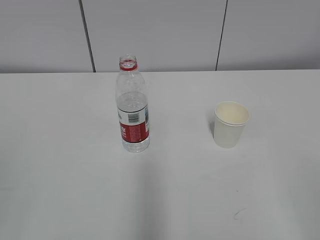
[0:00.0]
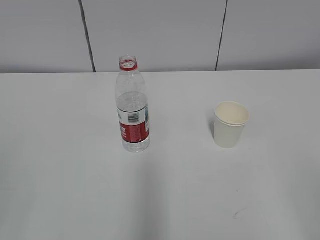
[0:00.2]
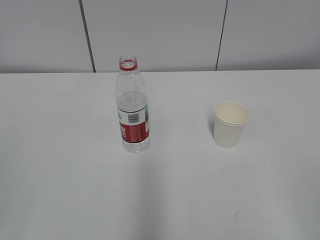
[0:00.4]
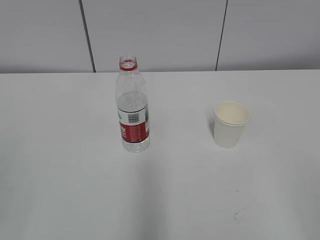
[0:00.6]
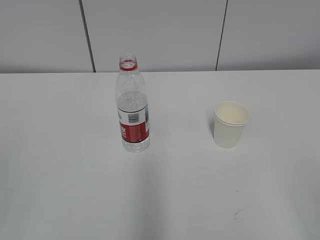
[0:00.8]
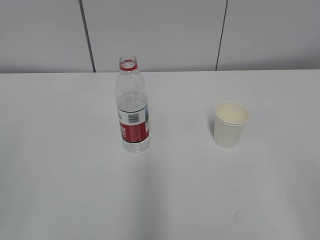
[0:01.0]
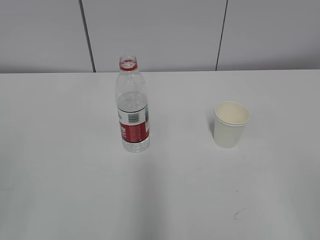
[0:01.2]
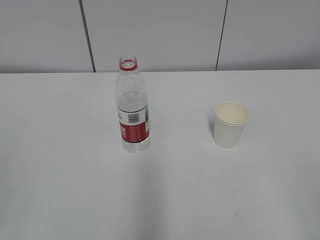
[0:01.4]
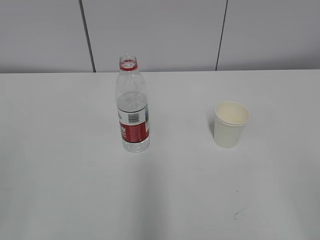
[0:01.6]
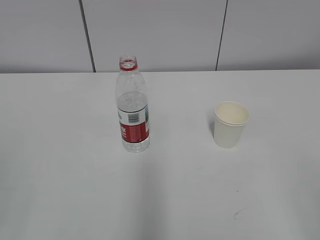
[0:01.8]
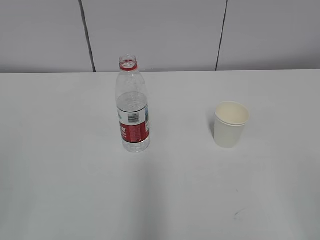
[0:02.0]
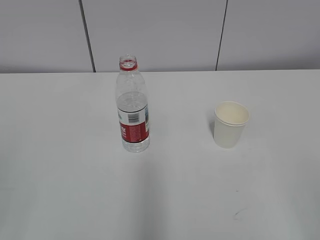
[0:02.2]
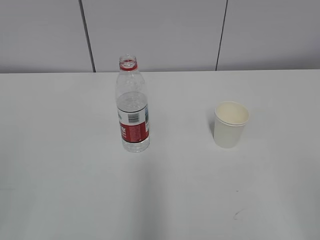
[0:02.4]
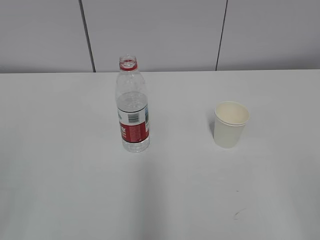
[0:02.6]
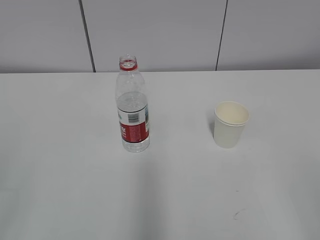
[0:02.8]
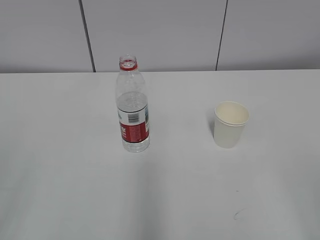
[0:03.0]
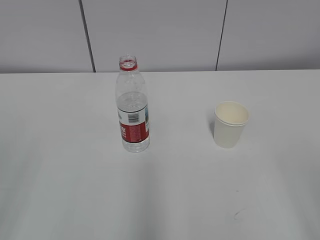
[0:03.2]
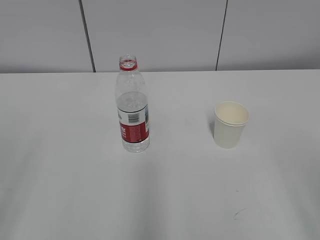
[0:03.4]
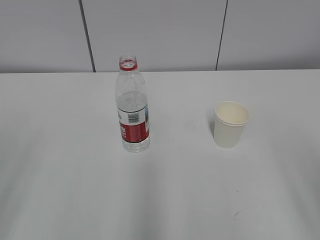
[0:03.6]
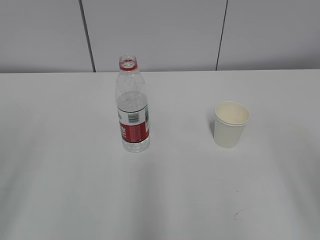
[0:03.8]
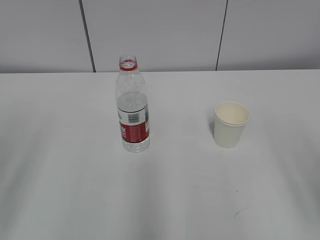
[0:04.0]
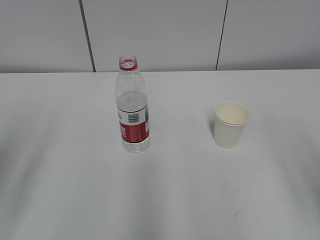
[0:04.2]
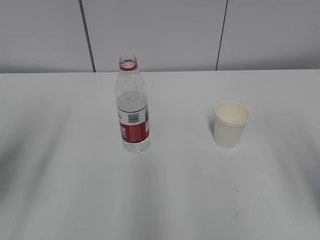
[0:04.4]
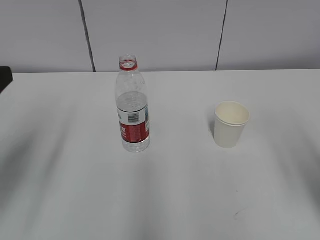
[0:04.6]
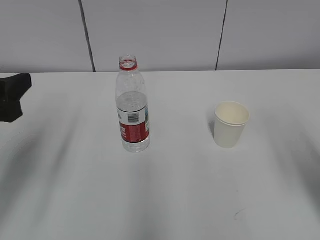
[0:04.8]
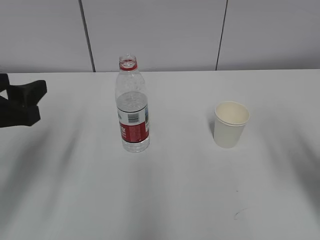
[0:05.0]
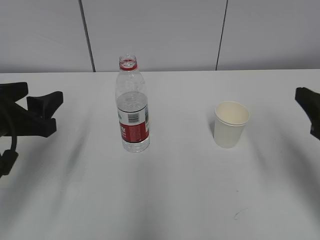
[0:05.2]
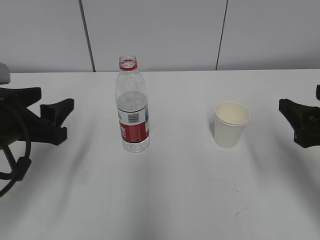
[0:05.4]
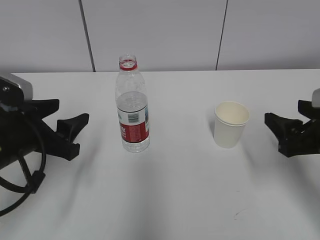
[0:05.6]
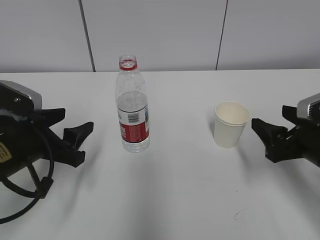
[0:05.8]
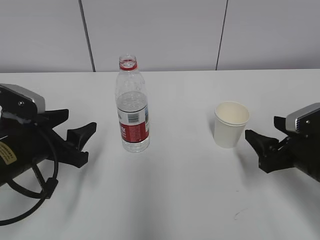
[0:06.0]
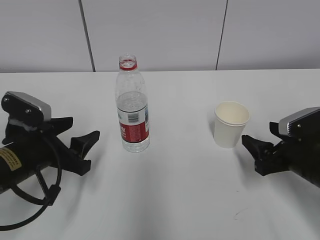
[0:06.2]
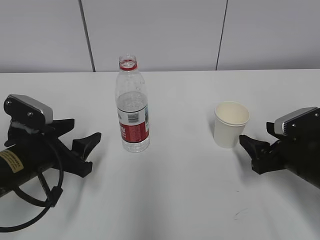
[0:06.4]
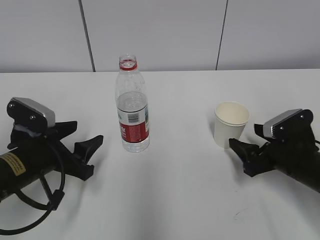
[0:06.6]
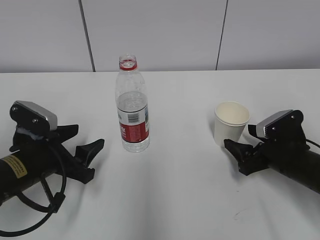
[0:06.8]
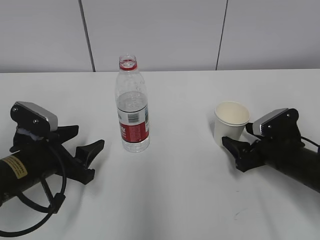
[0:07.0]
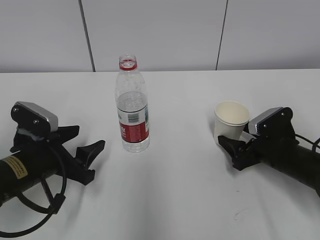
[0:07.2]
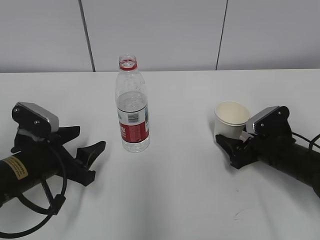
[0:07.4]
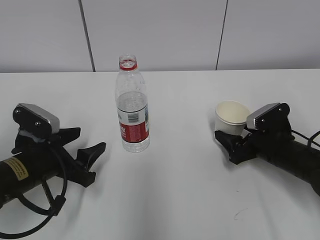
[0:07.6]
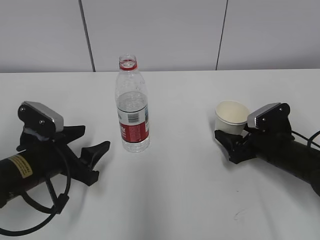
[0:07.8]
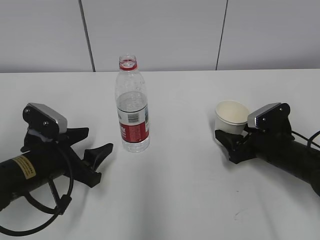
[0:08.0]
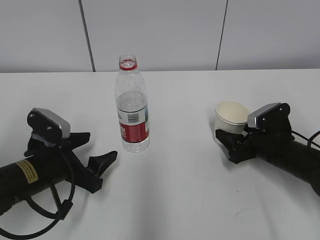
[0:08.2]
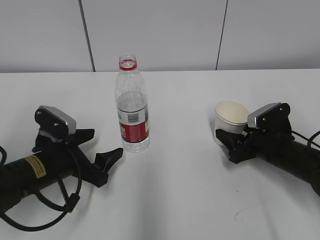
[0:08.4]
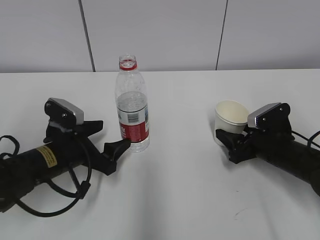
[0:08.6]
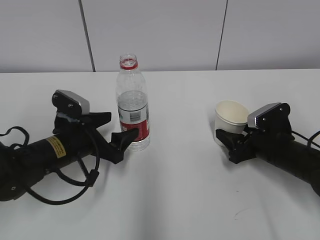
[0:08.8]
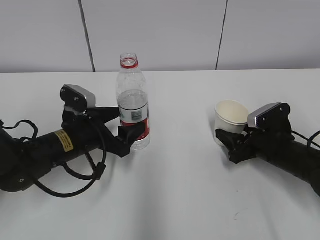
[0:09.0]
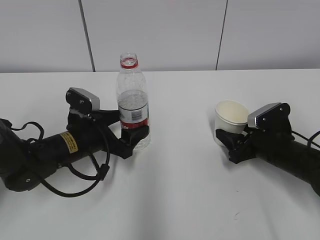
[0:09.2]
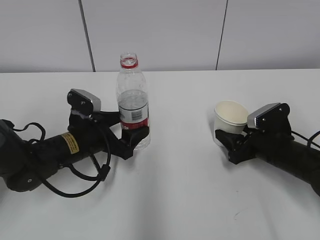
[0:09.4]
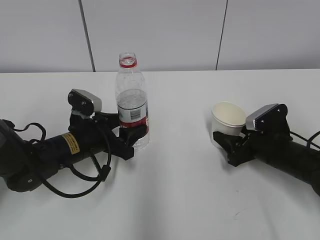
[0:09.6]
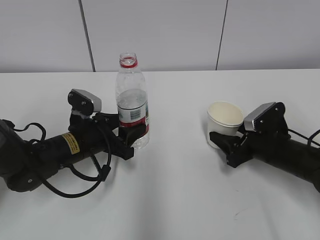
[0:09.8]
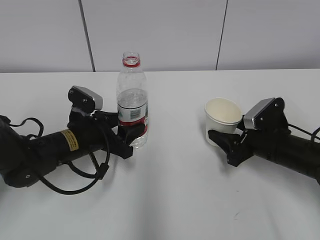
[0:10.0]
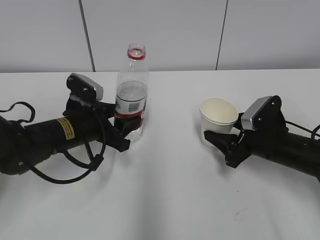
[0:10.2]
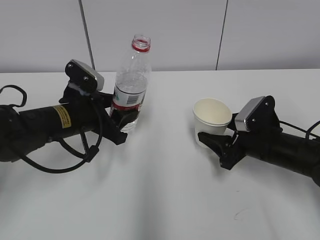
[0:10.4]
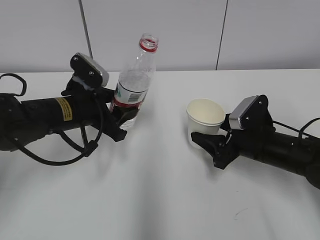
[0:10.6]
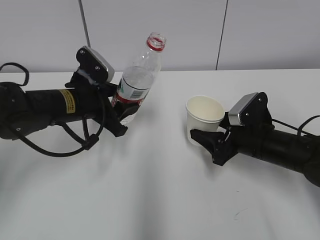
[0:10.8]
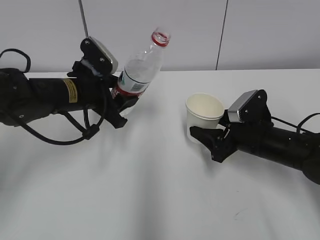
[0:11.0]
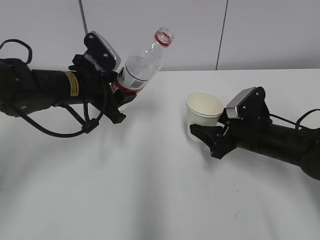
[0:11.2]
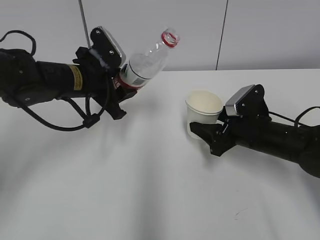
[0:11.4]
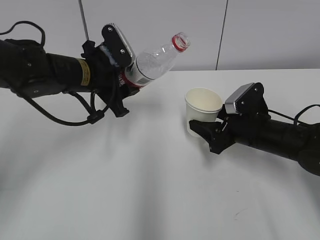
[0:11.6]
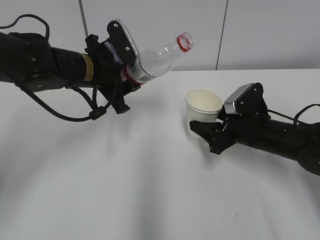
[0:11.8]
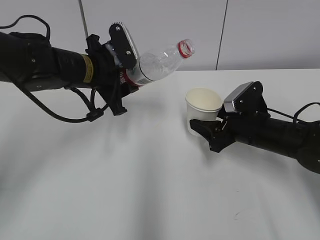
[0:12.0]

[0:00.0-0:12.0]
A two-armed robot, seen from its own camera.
Step, 0:00.0 to 0:08.0: Grab the paper cup with the right hand.
Step, 0:08.4 to 0:11.6: Lift the paper cup with the right hand.
0:03.0 to 0:04.4: The left gripper shifts approximately 15 cm forward.
0:04.4 to 0:06.0: The left gripper heads downward, forward and to the right, covering approximately 20 cm, while the right gripper heads downward and forward, covering some 20 cm.
0:06.0 to 0:07.6: The right gripper heads forward and downward, covering roughly 10 cm.
0:07.6 to 0:09.0: The left gripper is displaced forward by approximately 5 cm, while the right gripper closes.
0:09.0 to 0:10.4: The left gripper closes its fingers.
0:10.4 to 0:12.0: The left gripper moves upward and forward, some 10 cm.

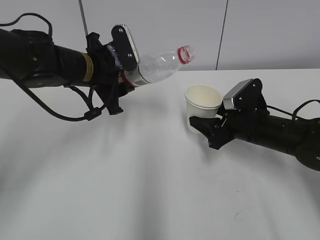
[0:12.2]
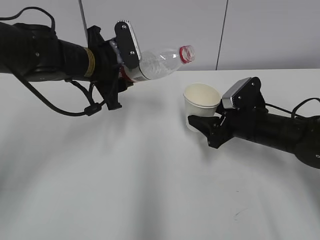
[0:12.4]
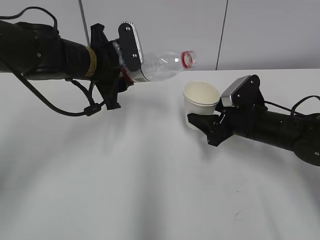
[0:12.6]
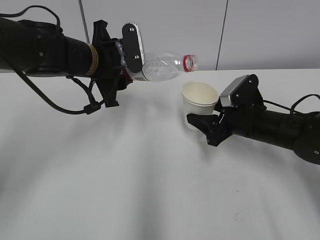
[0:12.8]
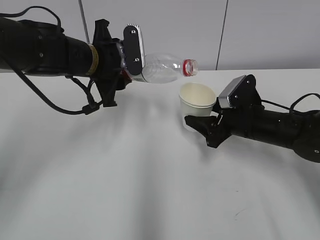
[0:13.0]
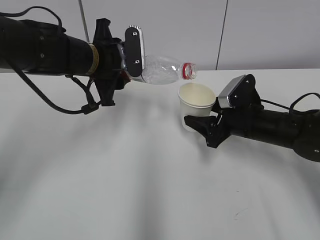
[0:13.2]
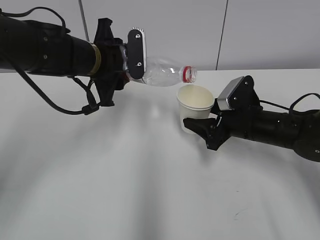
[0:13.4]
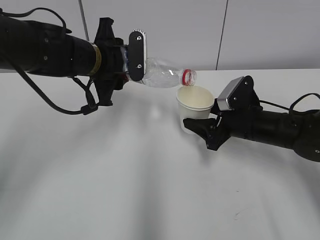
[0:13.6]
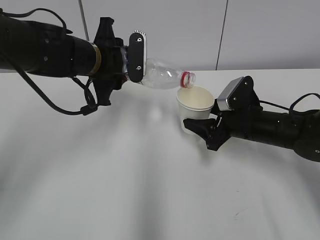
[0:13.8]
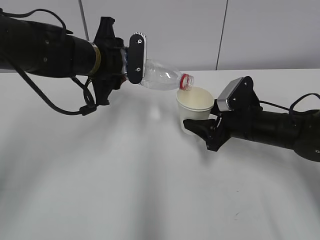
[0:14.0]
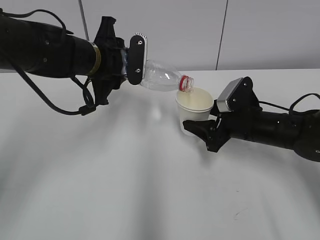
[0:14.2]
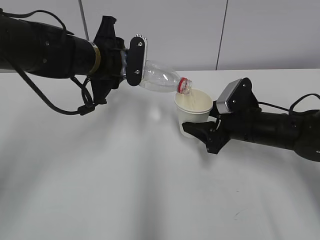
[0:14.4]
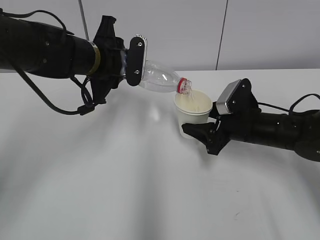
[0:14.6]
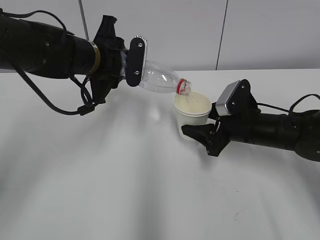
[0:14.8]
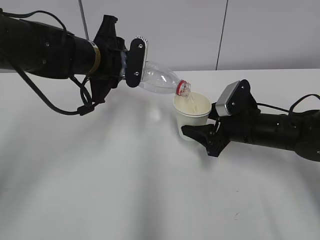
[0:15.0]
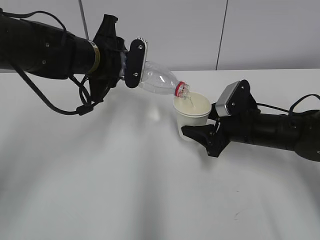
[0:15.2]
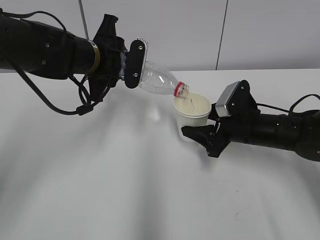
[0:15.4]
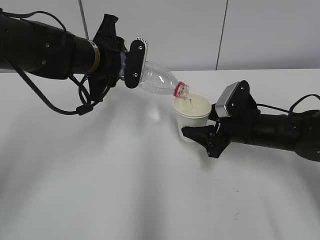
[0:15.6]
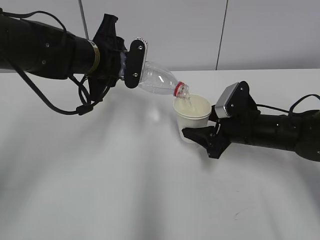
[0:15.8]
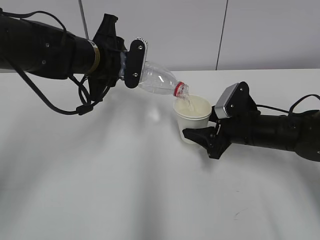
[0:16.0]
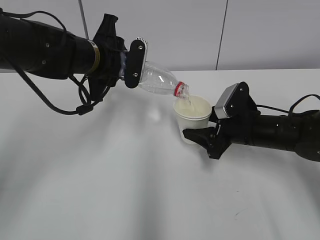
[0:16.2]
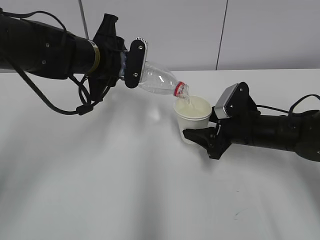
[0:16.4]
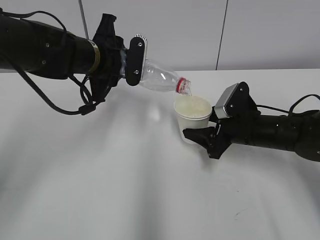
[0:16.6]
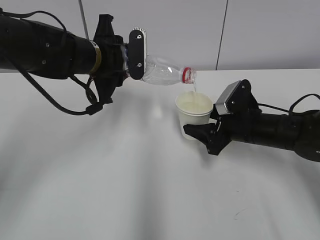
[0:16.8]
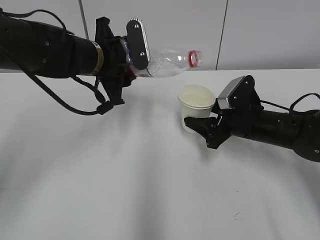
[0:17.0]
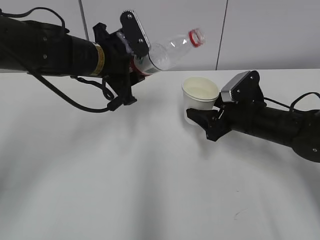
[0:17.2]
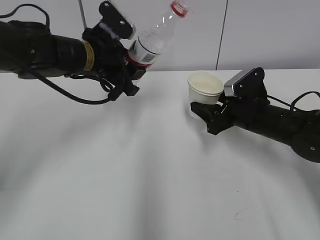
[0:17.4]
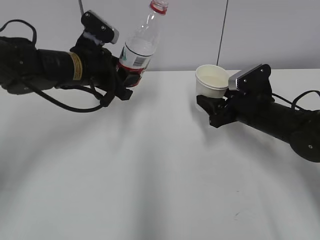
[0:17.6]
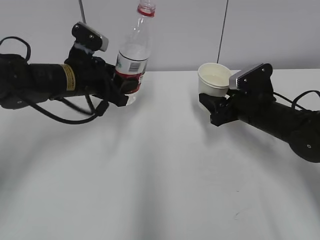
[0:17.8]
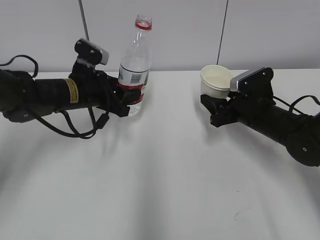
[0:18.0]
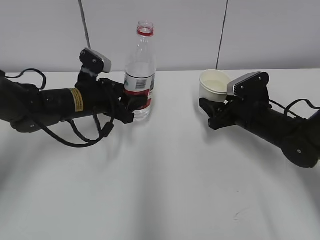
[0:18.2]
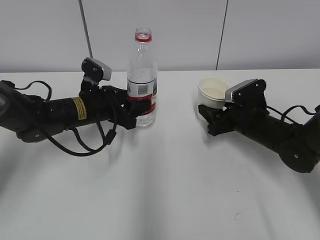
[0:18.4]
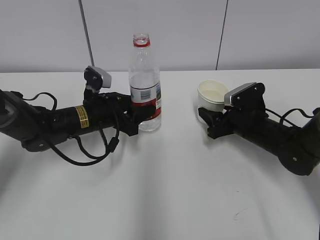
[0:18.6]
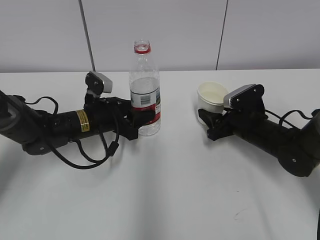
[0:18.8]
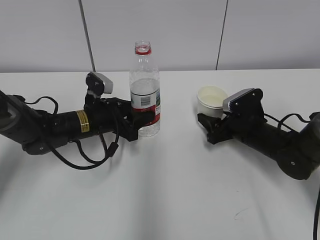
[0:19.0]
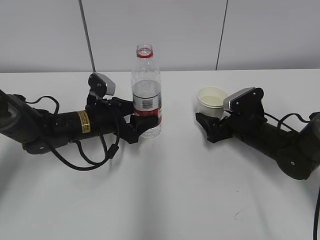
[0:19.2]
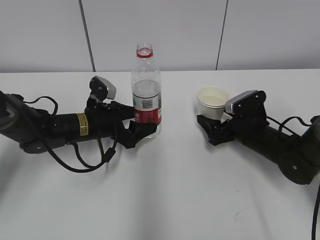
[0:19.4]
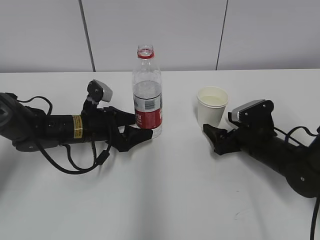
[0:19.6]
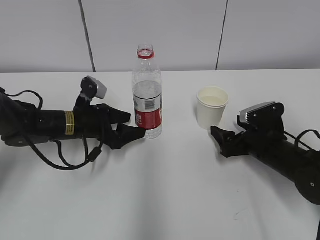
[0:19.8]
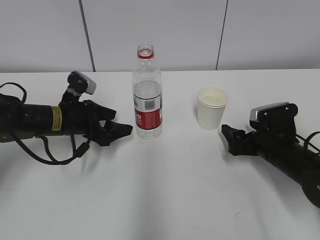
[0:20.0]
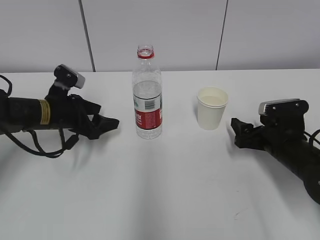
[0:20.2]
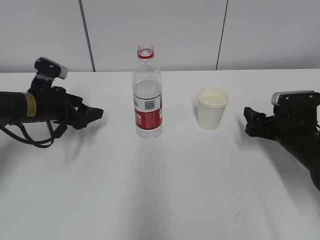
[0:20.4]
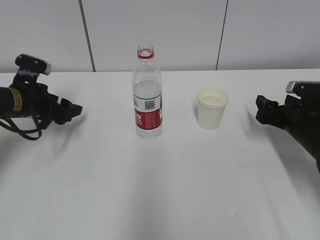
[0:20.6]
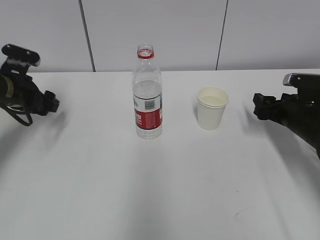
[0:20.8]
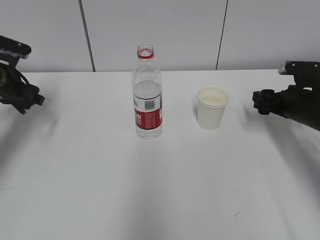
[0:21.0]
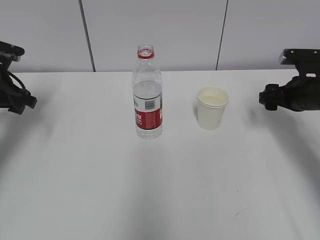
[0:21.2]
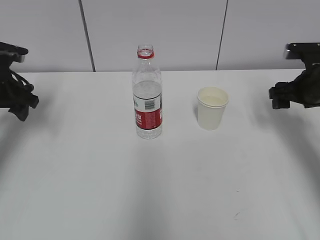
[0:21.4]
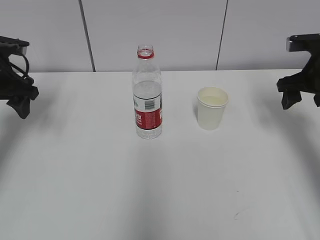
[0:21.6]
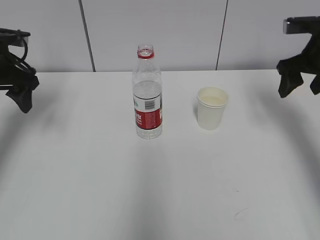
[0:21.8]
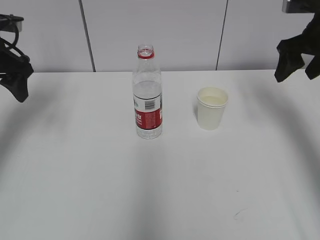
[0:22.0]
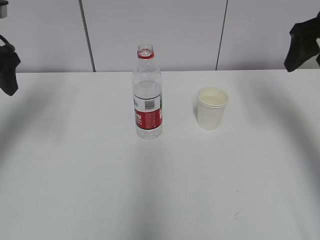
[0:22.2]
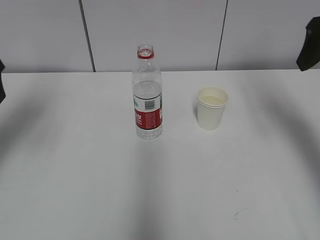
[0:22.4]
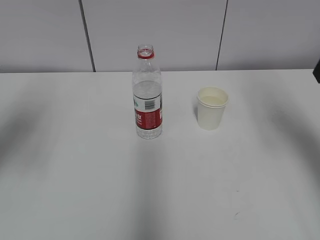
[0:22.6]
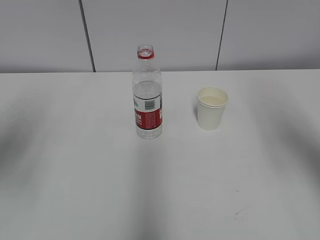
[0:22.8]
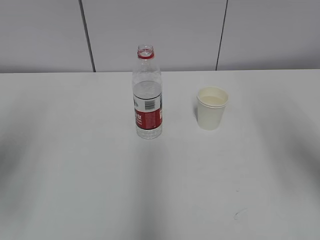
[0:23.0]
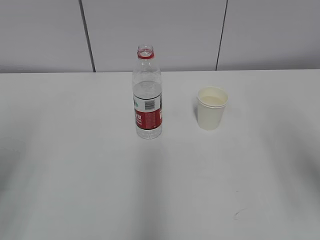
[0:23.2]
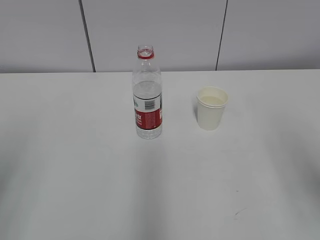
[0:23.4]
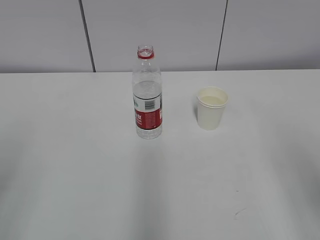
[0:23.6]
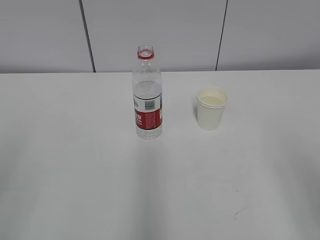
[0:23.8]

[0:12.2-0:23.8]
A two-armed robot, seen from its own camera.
Step, 0:12.2 to 0:14.0: Fill water with the right hand.
Step, 0:12.2 to 0:14.0: Pour water with the left hand.
Step, 0:14.2 to 0:15.0: Collect water with the left hand.
0:13.6 to 0:15.0: There are only small adjustments of the grippers.
0:15.0 to 0:16.6: Both grippers stay put.
0:16.6 to 0:18.0: The left gripper is displaced downward by some 5 cm.
0:18.0 to 0:19.4: The left gripper heads downward, covering roughly 10 cm, and opens, while the right gripper travels downward by some 5 cm, and opens.
0:19.4 to 0:21.0: The right gripper goes approximately 10 cm to the right and upward, and closes. The left gripper shifts some 20 cm to the left and upward.
0:21.0 to 0:22.4: The right gripper travels upward by approximately 25 cm. The left gripper travels upward and backward by about 15 cm.
0:22.4 to 0:23.8: The grippers both shift backward by about 25 cm.
